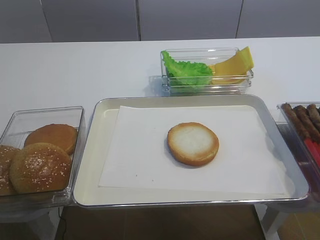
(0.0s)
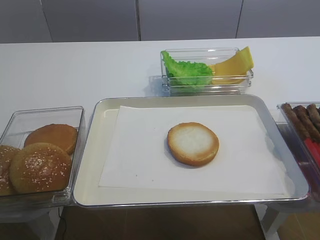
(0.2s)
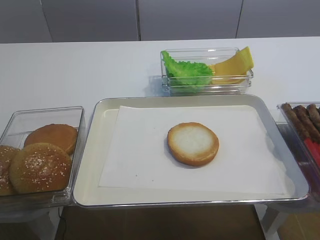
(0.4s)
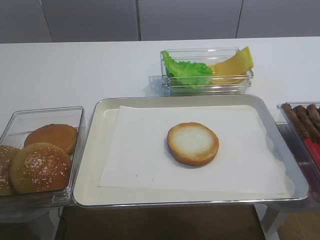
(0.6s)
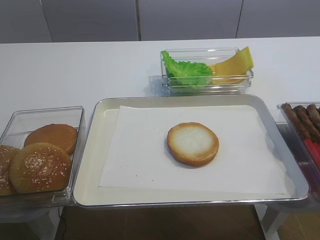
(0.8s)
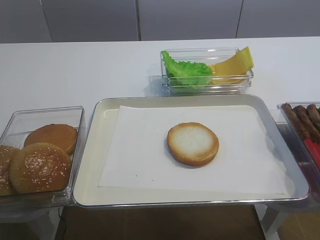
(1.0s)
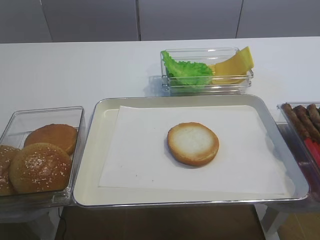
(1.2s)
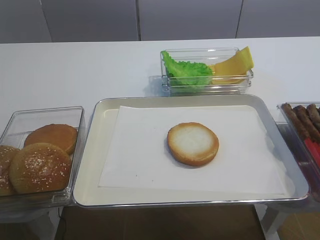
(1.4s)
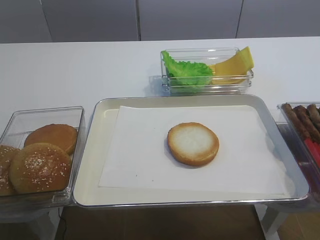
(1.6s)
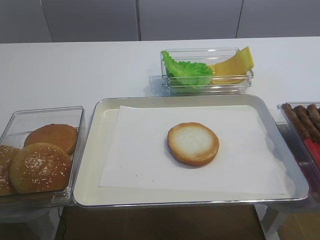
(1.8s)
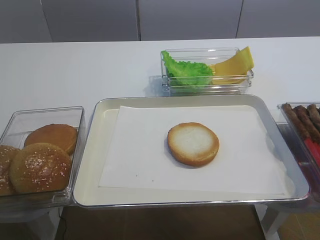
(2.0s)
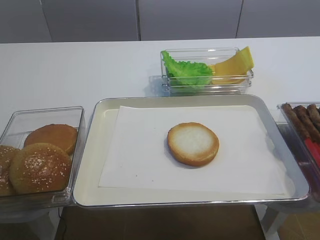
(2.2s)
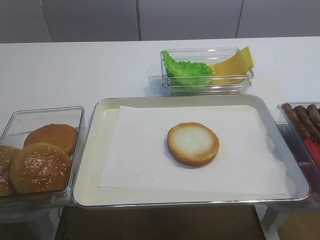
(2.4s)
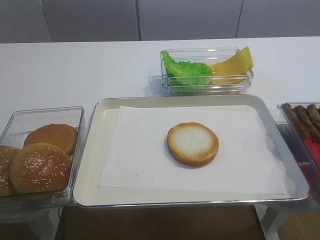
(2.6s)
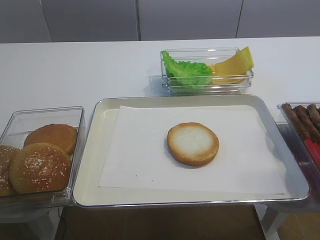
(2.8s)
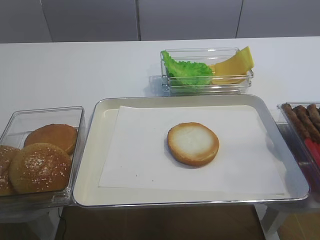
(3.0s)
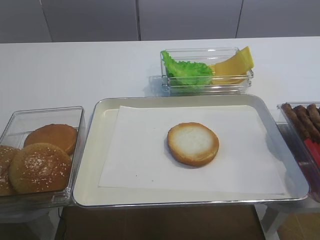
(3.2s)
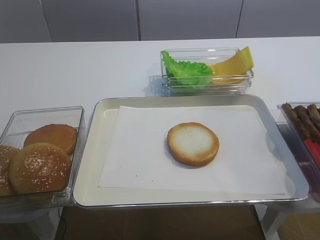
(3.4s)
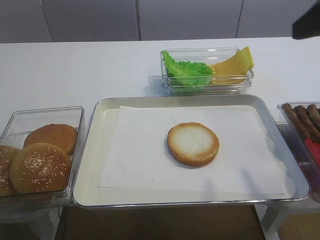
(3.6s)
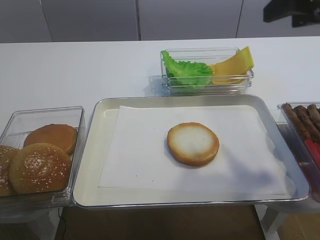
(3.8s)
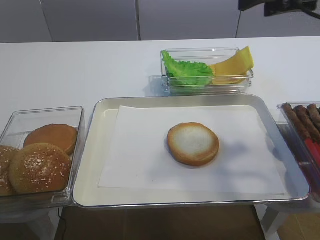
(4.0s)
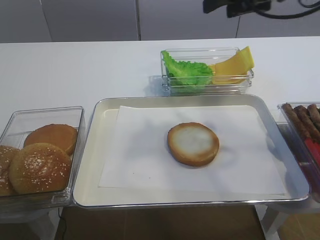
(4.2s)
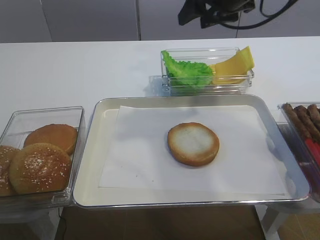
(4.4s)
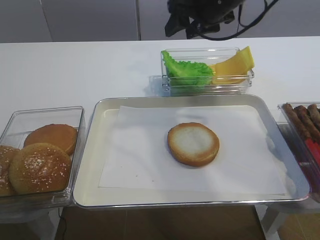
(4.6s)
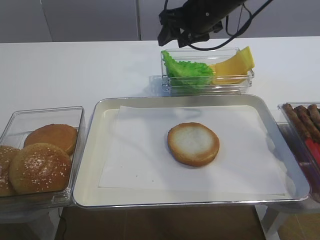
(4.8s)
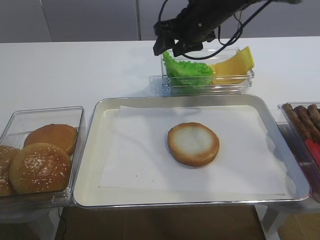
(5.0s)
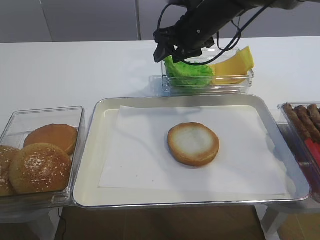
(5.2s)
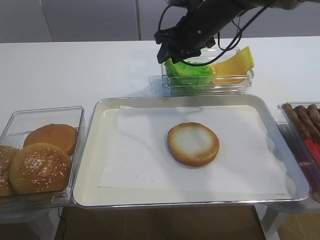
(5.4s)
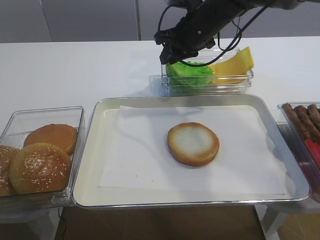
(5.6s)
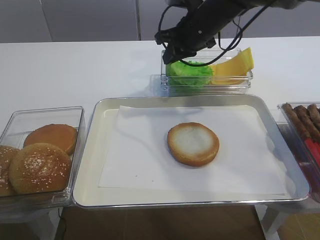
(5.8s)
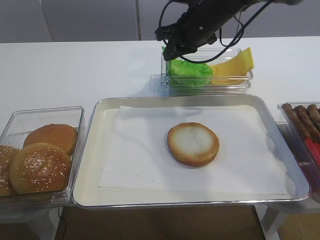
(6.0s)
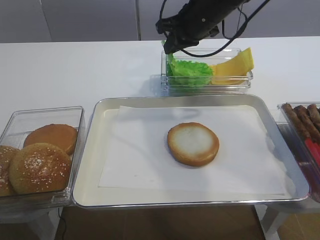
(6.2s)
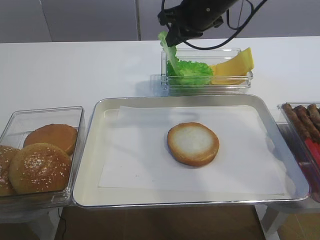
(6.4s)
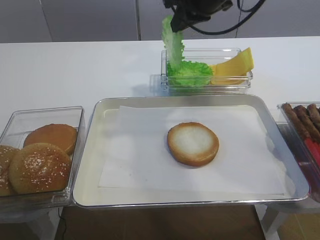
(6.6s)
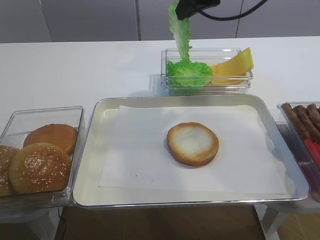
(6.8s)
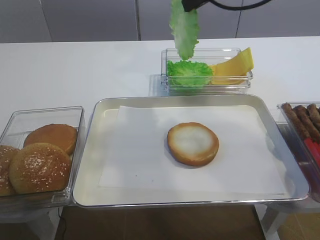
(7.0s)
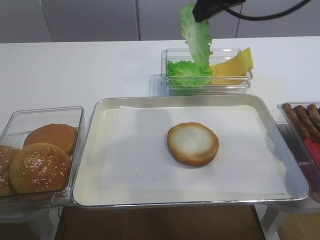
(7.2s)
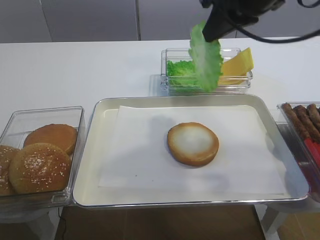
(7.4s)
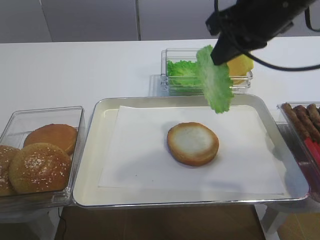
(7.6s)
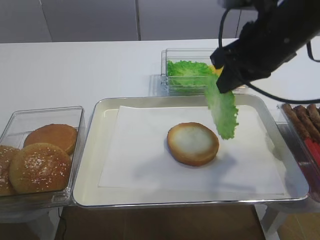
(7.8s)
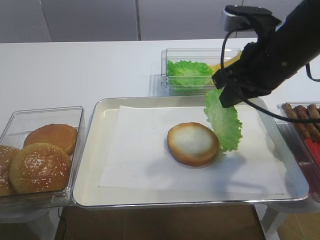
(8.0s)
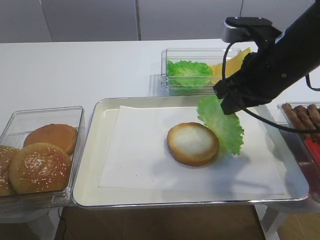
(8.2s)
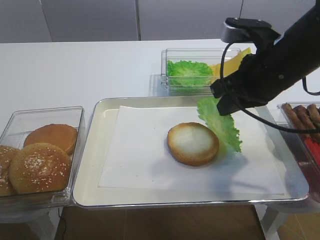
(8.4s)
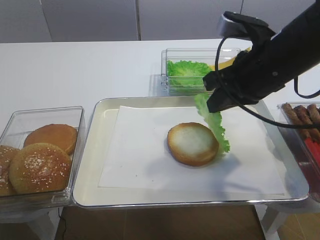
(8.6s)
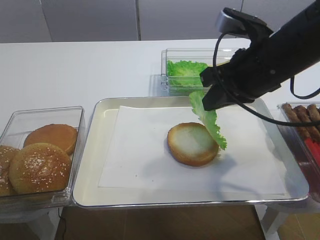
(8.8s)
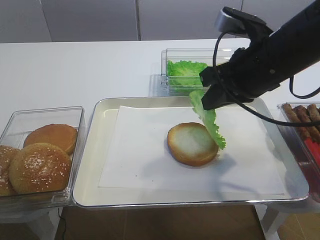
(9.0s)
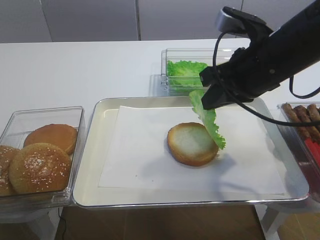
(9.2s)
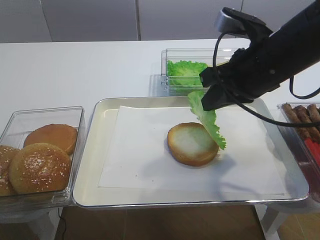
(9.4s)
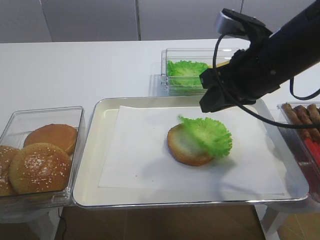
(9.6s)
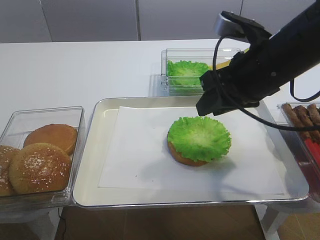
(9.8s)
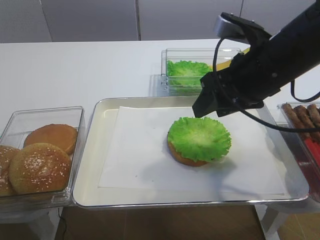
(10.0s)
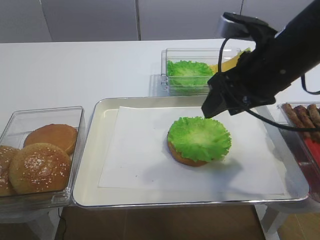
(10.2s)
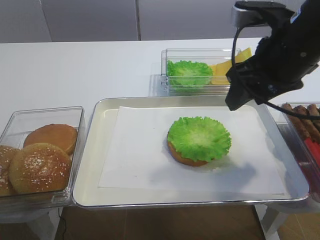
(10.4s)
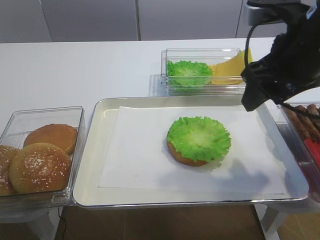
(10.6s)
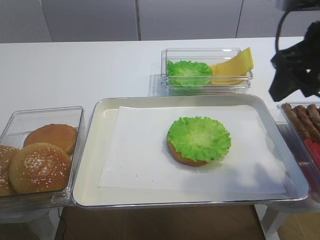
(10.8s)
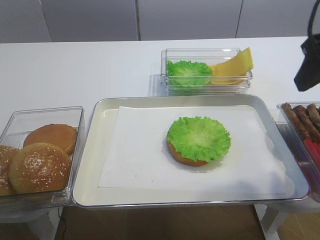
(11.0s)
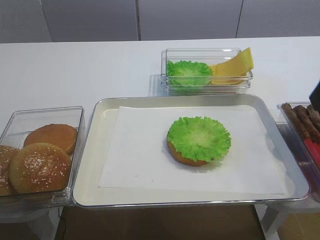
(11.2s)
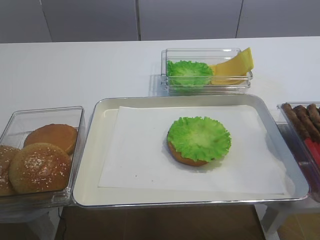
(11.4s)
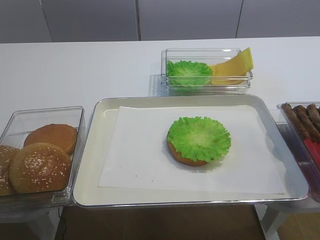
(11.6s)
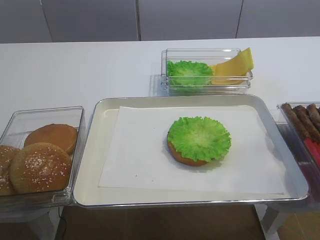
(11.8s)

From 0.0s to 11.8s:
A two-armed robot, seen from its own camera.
Step, from 0.0s to 6.4s: Pick up the lettuce leaf with the right gripper.
Step, from 6.6s to 9.6s: Place the lettuce leaf on the bread slice with the right gripper.
From 3.0s to 4.4s: The right gripper moves forward, roughly 35 cm.
From 4.4s to 6.0s: The right gripper goes about 10 cm downward, forward and to the left, and closes.
From 6.0s to 7.4s: The right gripper travels backward, upward and to the right by about 20 cm.
From 7.4s to 8.8s: The right gripper shifts roughly 10 cm downward.
From 8.8s to 10.4s: The right gripper opens up.
From 10.4s to 11.8s: The right gripper goes about 25 cm backward and to the right.

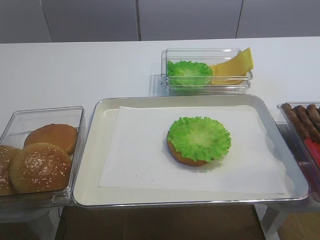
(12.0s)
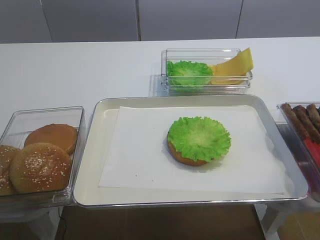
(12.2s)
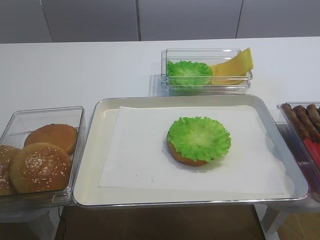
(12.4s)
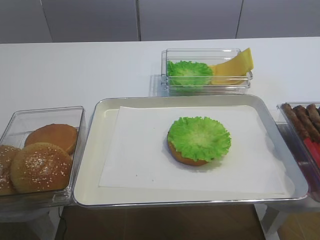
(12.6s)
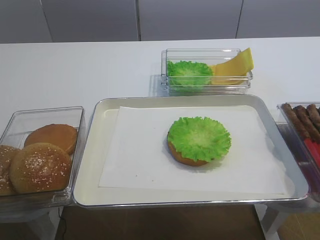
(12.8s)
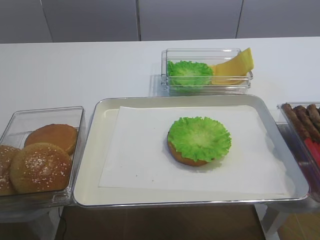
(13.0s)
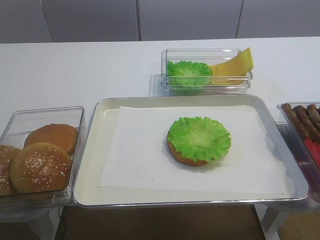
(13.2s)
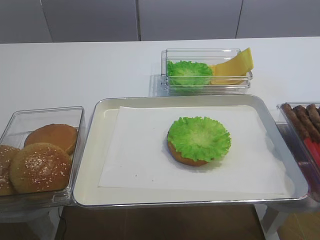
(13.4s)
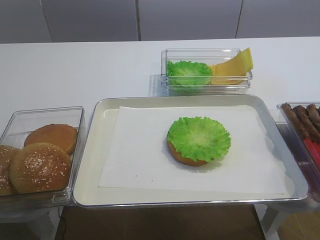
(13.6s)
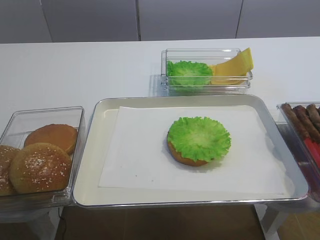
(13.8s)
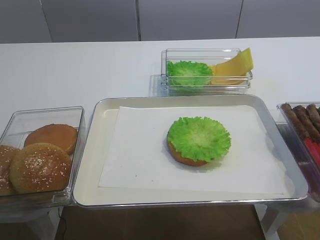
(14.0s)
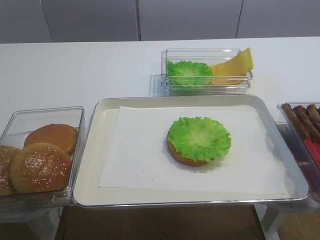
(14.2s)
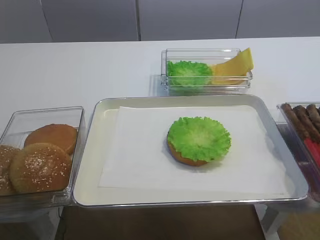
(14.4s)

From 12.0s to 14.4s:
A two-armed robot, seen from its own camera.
From 13.2s to 14.4s: The two grippers keep their place.

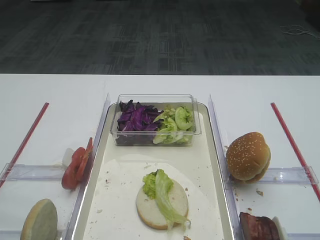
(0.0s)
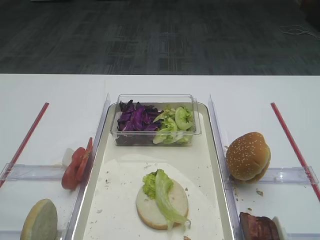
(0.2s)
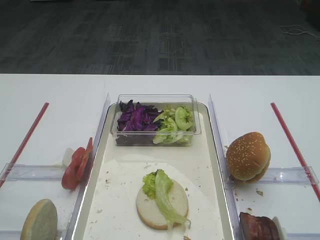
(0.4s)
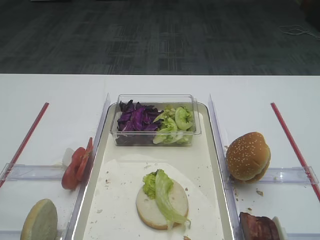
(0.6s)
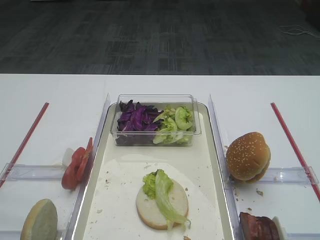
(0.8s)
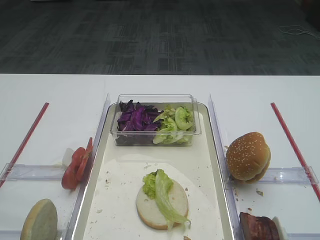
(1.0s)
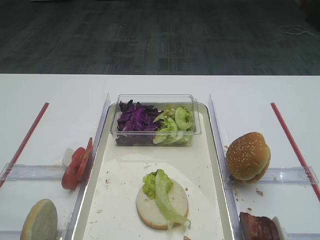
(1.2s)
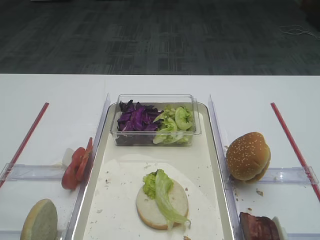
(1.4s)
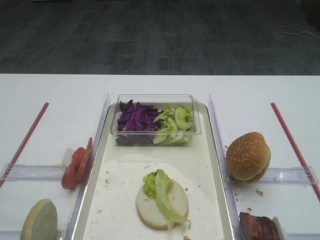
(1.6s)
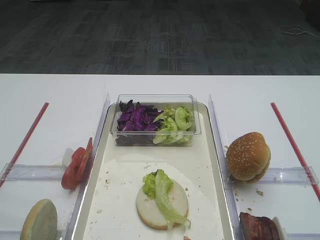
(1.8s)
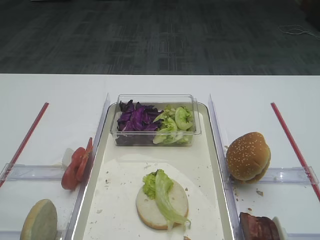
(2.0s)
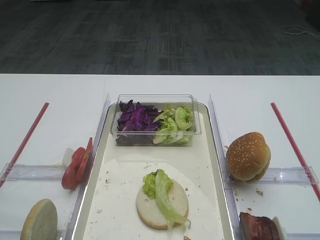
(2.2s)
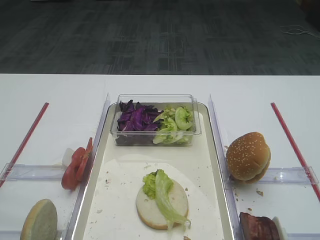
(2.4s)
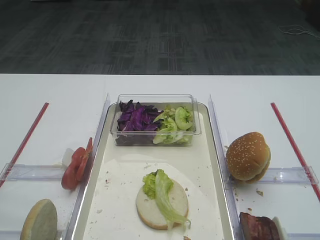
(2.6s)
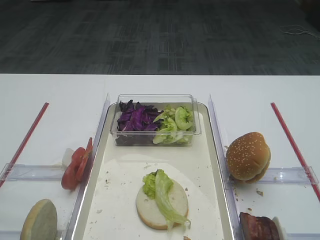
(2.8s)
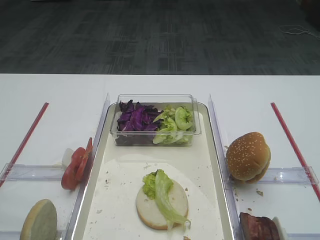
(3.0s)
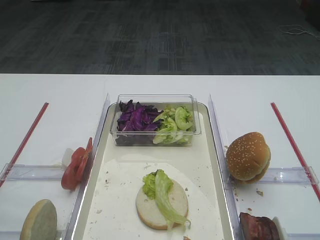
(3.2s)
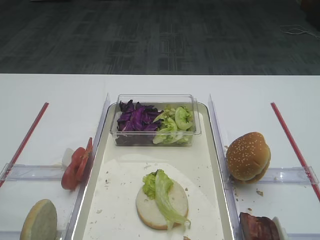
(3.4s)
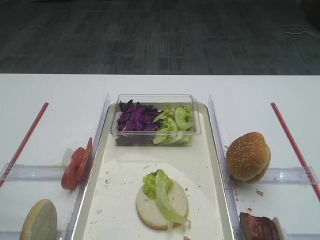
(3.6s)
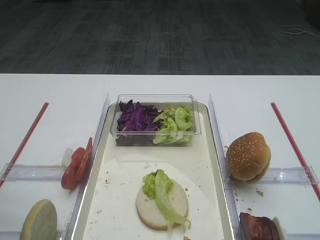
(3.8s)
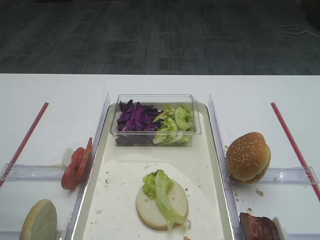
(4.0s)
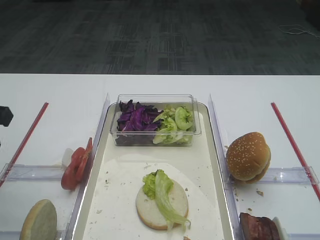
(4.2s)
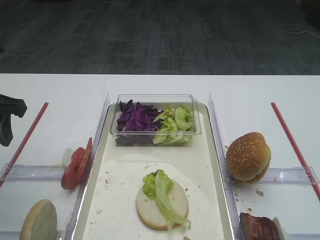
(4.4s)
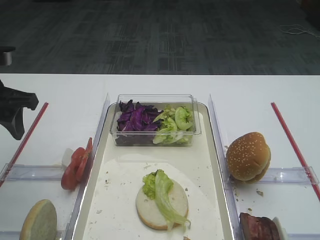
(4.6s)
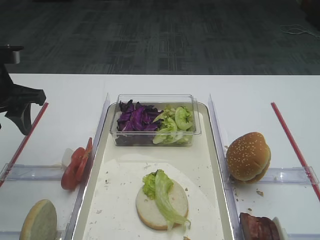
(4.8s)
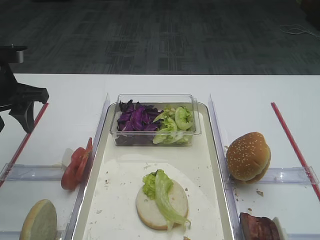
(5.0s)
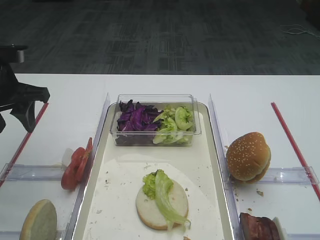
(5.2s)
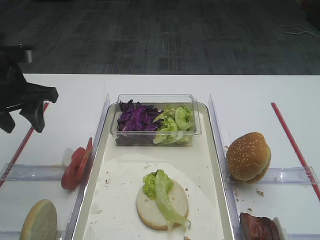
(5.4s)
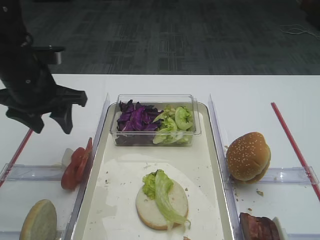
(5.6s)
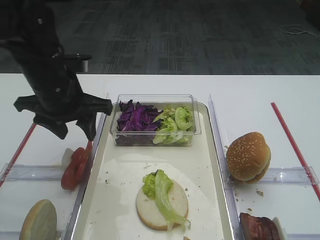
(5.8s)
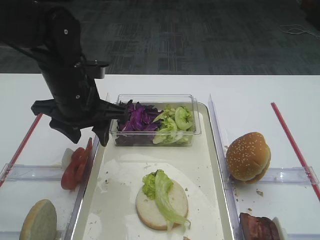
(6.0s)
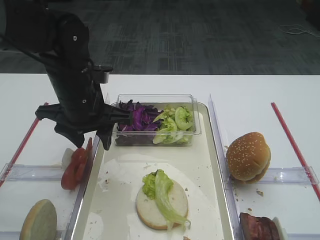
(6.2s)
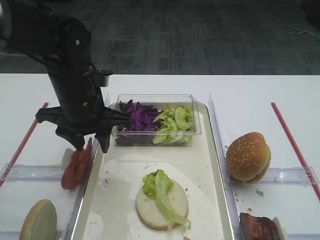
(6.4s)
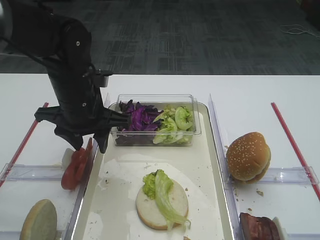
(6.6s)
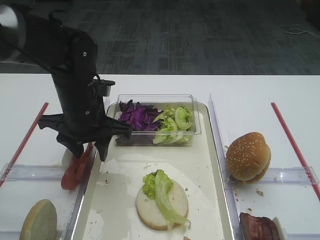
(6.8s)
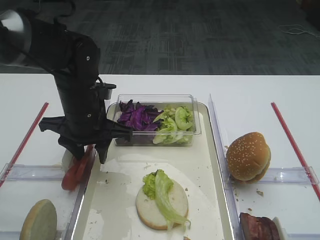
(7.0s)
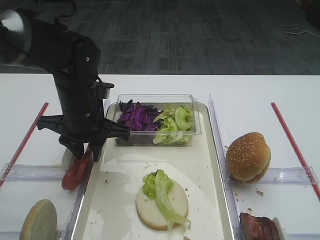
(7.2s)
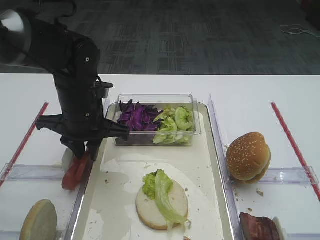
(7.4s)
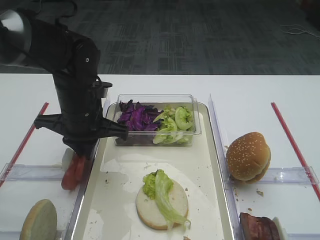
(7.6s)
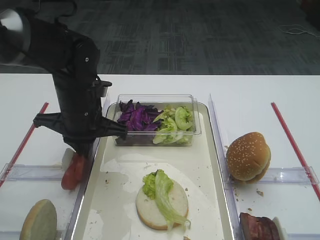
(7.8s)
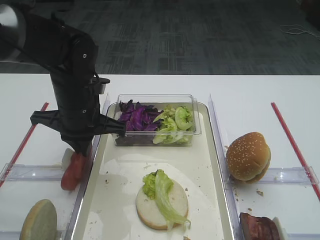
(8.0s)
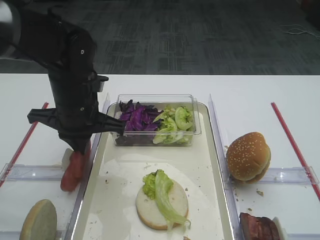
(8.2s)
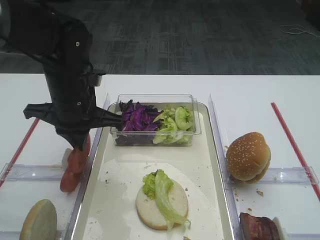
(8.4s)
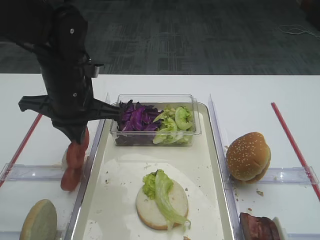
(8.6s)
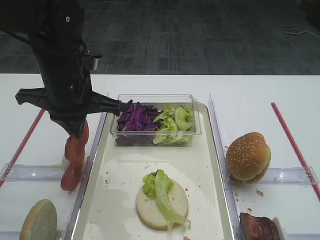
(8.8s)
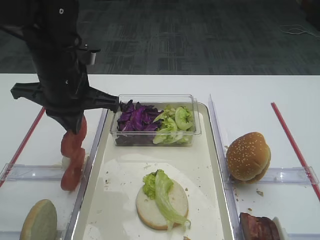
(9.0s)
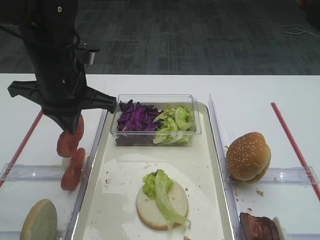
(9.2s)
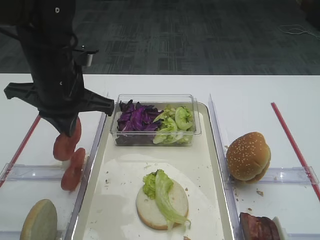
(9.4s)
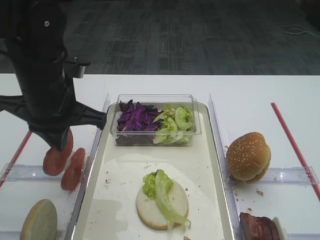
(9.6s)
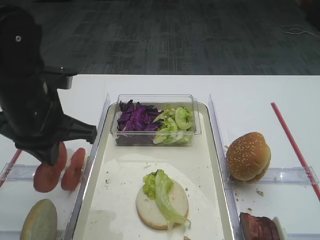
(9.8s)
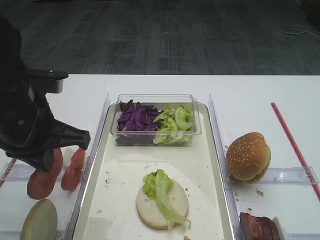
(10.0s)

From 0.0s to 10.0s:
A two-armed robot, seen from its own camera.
Step, from 0.0s to 9.0s: Pick up the tomato slice with the left gripper.
From 2.8s to 4.2s: The left gripper travels forward by approximately 20 cm.
From 4.2s to 5.8s: The left gripper heads to the right and forward, covering some 15 cm.
From 5.8s to 7.2s: The left gripper moves approximately 5 cm.
From 7.2s to 8.6s: The left gripper closes up.
From 8.6s to 10.0s: The left gripper shifts approximately 10 cm backward.
